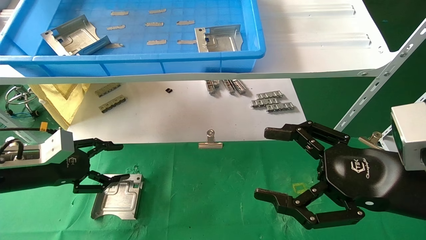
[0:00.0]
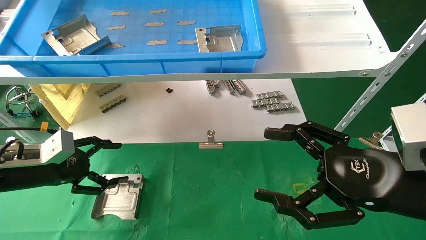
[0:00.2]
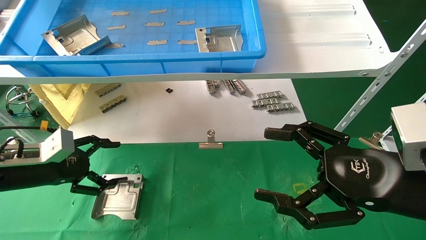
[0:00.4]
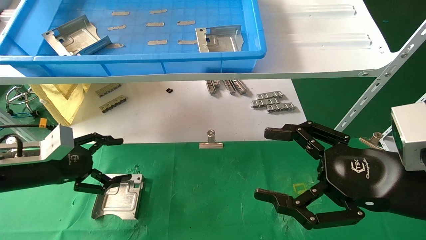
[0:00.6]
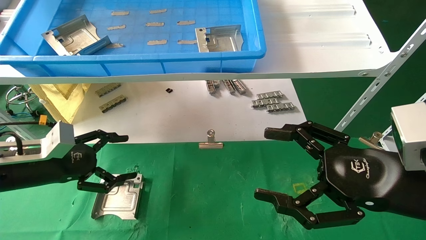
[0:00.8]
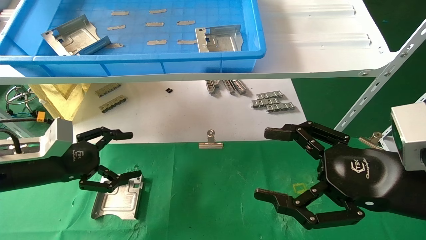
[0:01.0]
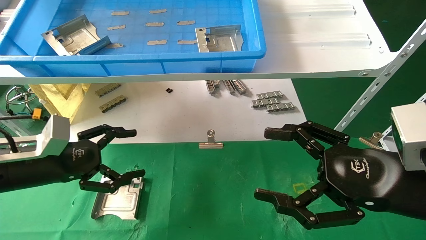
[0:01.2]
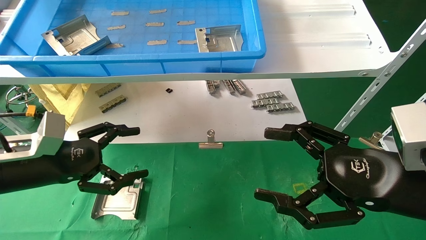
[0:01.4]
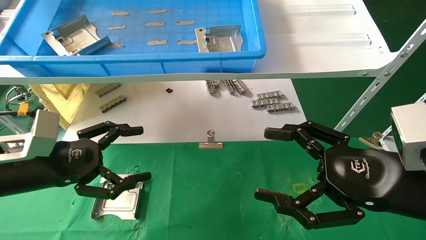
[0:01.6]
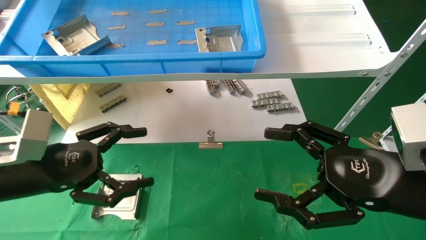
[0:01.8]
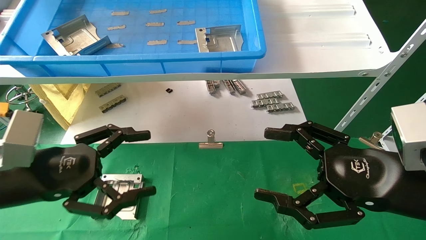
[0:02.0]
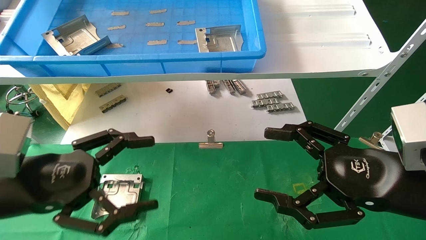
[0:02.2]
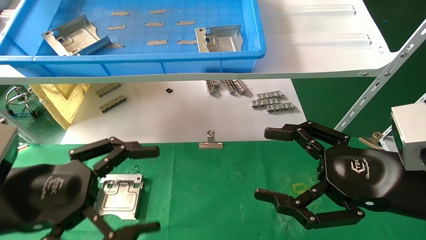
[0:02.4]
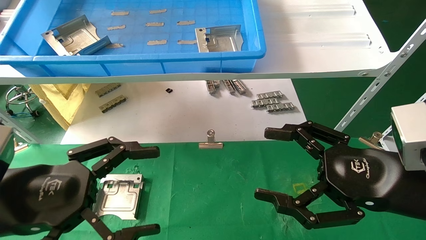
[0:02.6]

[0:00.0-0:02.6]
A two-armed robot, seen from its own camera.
Task of the whole recording: use the mechanical arm to pick up the parts and place them on the table.
0:00.0 to 0:01.2: The left gripper shifts by about 5 cm, and opens its fingers.
0:01.2 to 0:02.6: The left gripper goes about 15 cm backward and to the right.

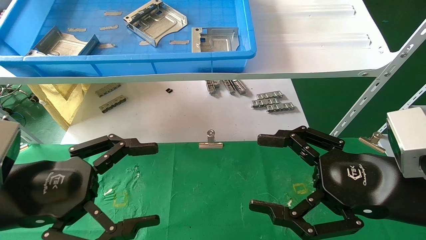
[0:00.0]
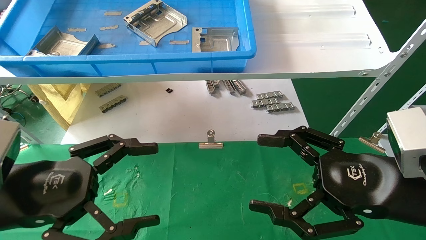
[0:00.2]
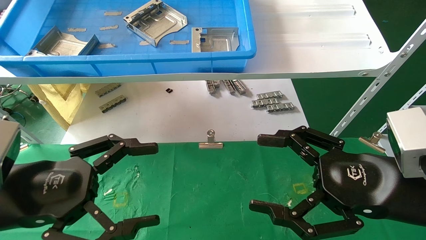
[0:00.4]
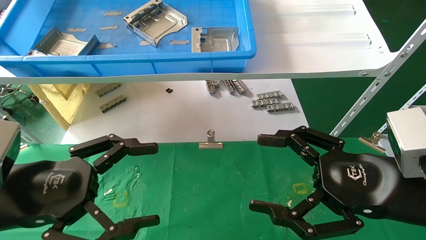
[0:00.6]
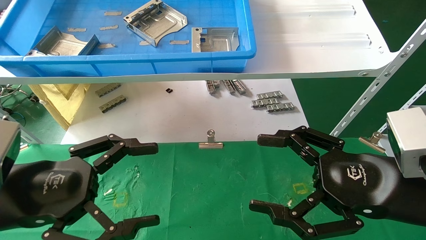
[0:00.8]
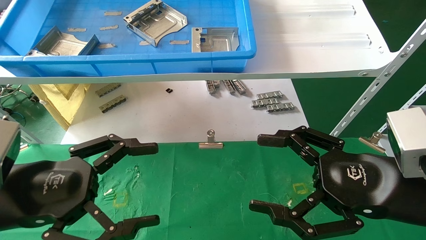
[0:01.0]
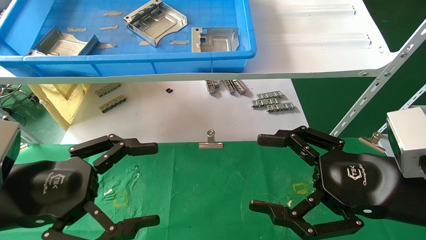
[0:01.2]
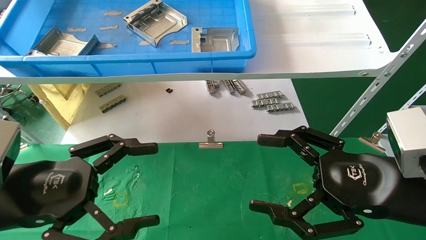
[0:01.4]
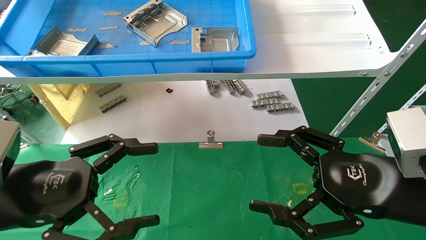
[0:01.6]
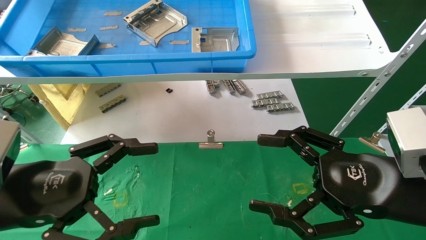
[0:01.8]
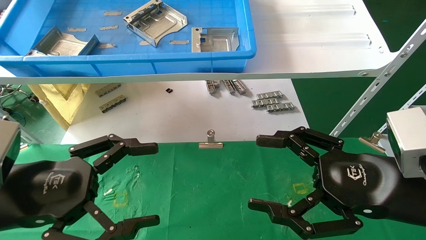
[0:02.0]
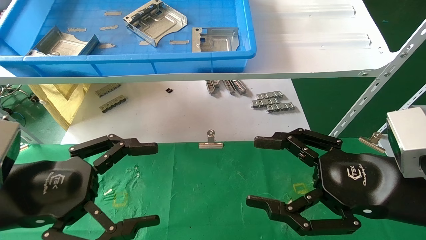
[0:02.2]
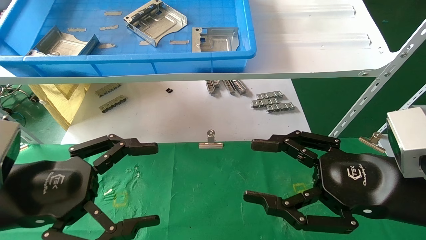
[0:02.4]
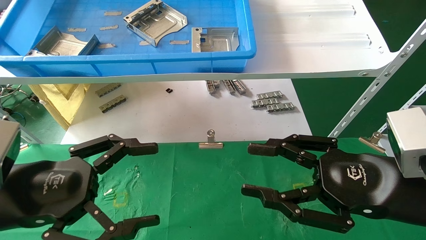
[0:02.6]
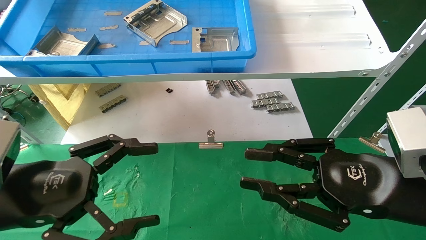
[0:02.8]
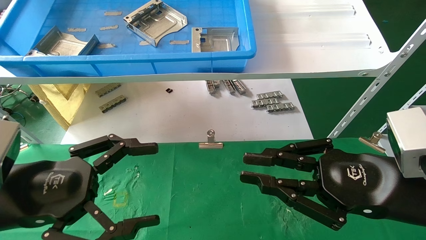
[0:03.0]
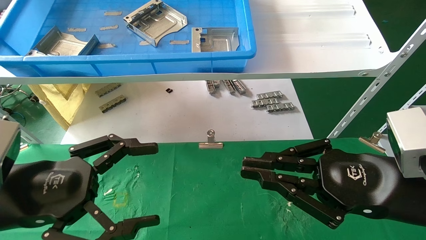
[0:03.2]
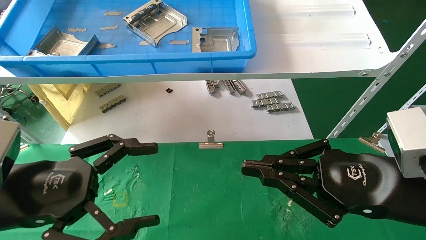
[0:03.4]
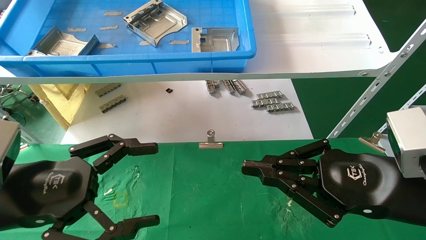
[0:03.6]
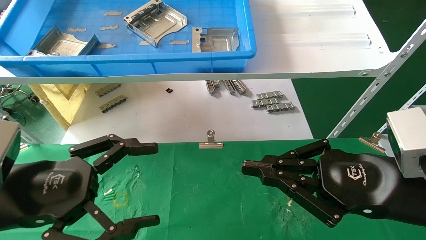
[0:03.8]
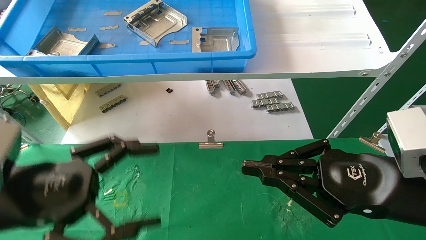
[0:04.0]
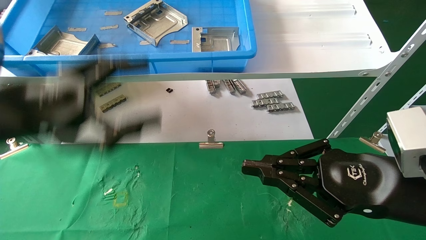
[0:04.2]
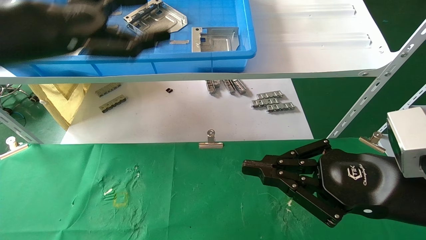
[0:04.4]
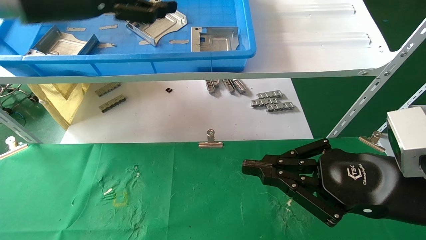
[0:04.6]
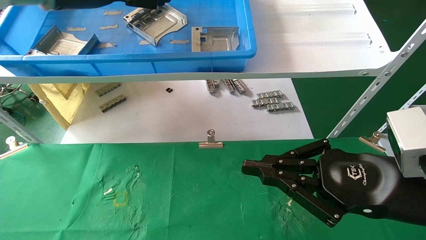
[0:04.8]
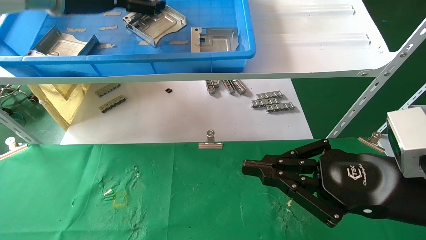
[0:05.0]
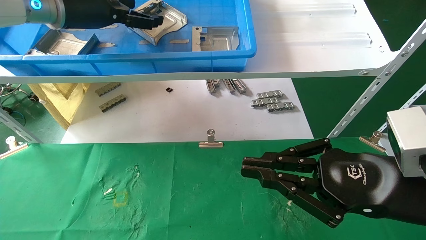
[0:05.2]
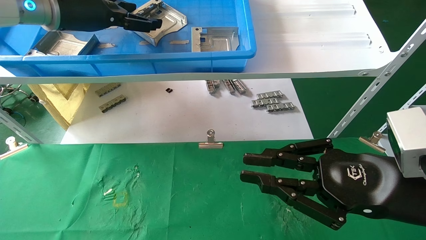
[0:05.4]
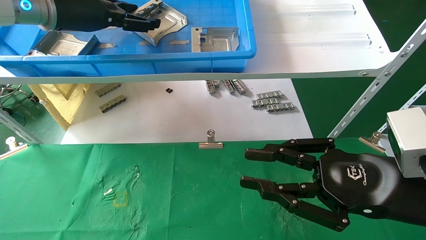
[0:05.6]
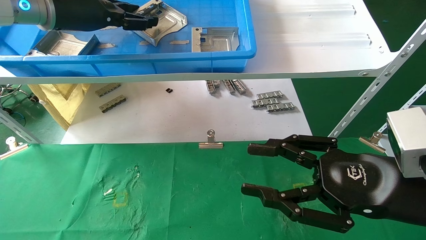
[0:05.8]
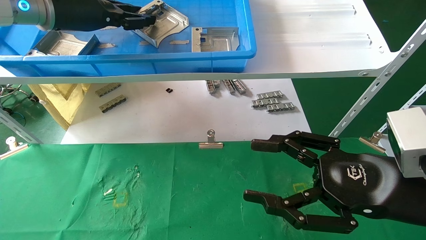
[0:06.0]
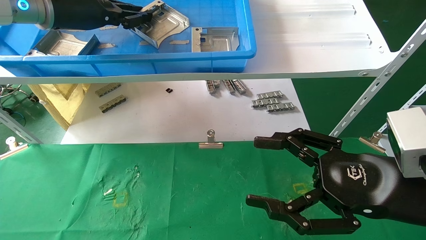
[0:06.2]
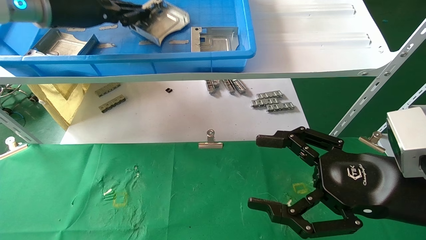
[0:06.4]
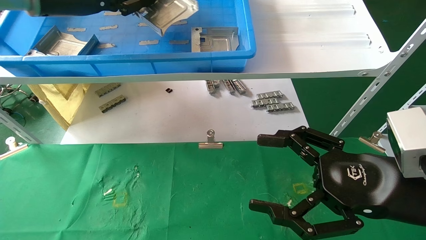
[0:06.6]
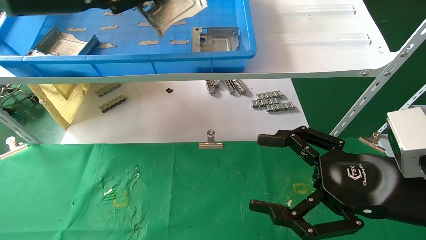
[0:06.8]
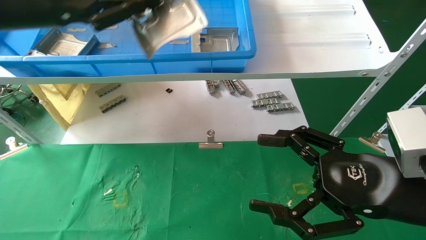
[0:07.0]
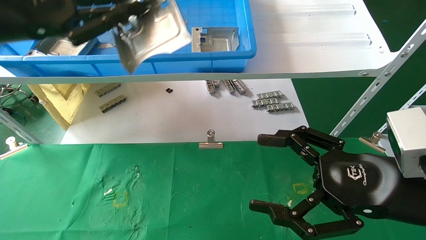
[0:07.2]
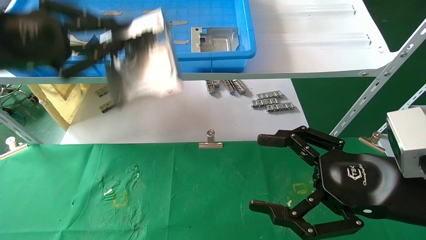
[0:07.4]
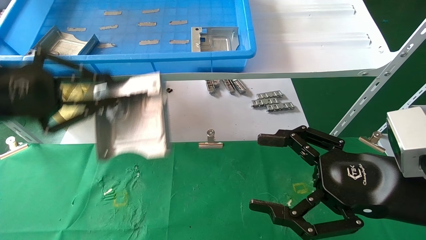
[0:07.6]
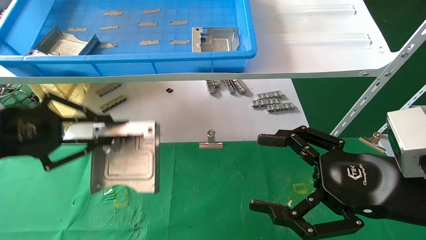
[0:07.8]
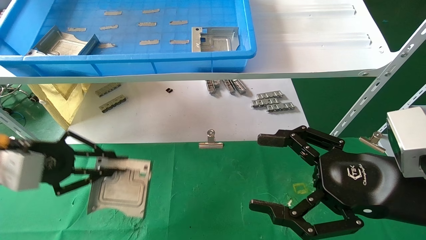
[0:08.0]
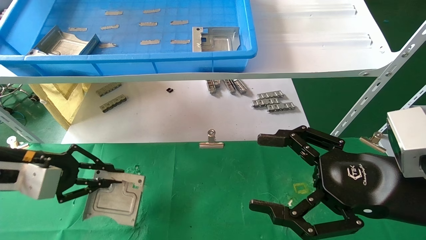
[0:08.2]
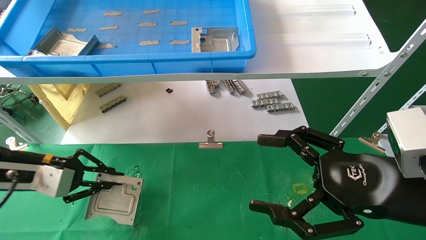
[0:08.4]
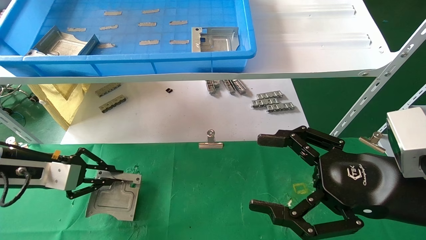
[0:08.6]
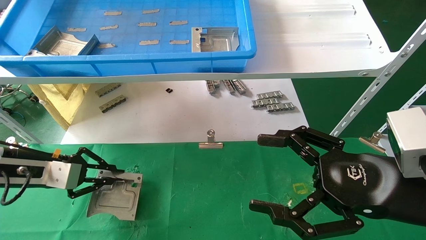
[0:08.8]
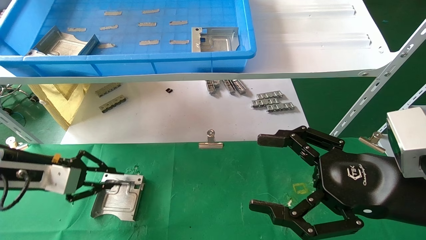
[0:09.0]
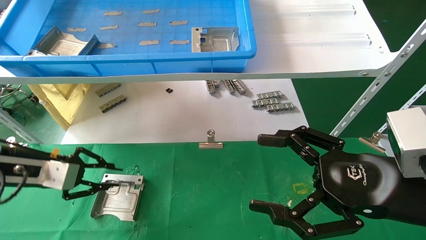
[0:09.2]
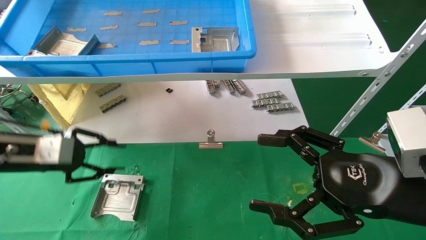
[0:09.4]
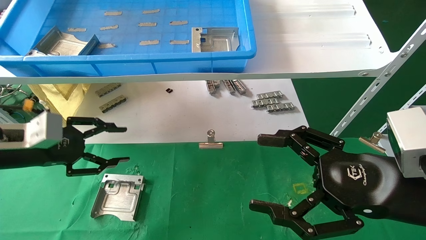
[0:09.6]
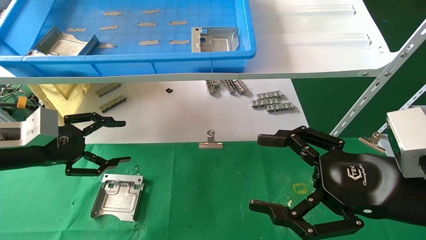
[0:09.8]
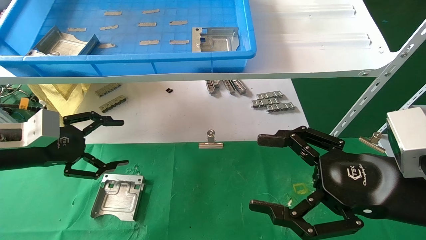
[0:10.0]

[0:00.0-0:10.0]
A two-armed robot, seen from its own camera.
Task of the whole recording: use the mechanical arm to pick up the parts and place them on the table.
Step, 0:04.4 to 0:06.2: Pick up the hard drive bracket from the feeding area.
Step, 0:06.4 to 0:09.4: Place the hard drive bracket into the box.
0:00.0 to 0:01.4: The two grippers keep their place.
0:01.4 to 0:02.8: The right gripper closes.
0:02.8 to 0:04.2: The right gripper closes its fingers, while the left gripper goes some 10 cm upward.
0:04.2 to 0:05.8: The right gripper opens its fingers. The left gripper is displaced forward and upward by about 20 cm, and closes its fingers.
0:05.8 to 0:07.2: The right gripper opens up. The left gripper travels backward and to the left by about 15 cm, and closes its fingers.
0:07.2 to 0:08.6: The left gripper goes approximately 25 cm downward.
0:08.6 to 0:10.0: The left gripper opens up.

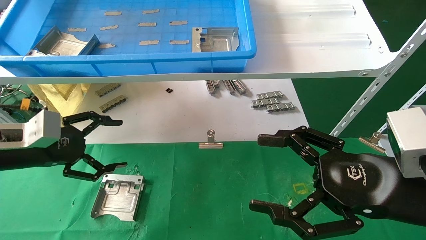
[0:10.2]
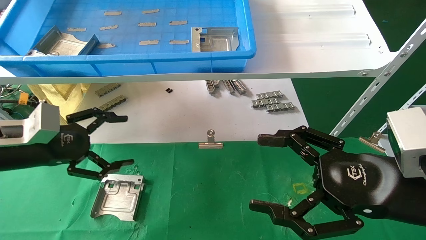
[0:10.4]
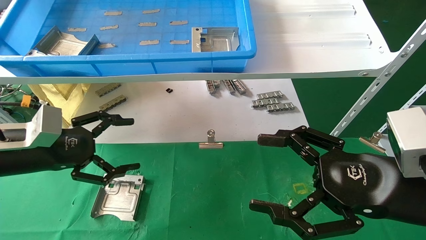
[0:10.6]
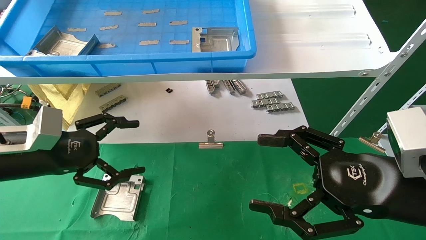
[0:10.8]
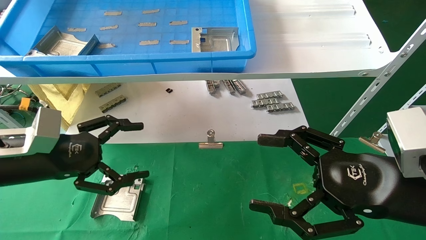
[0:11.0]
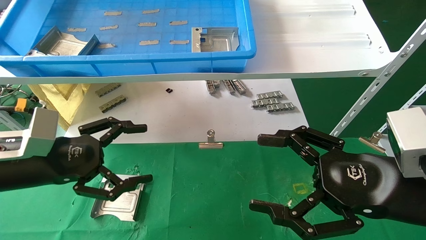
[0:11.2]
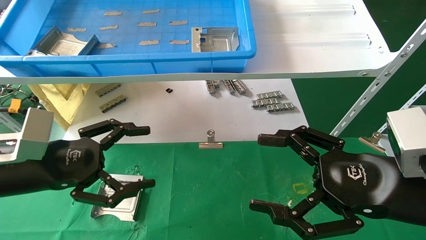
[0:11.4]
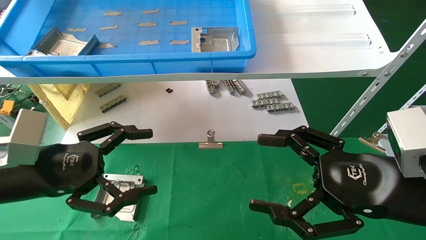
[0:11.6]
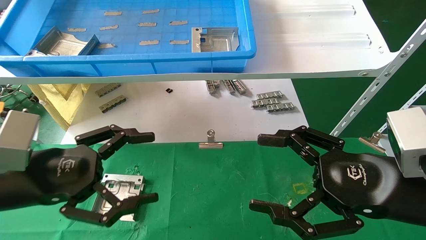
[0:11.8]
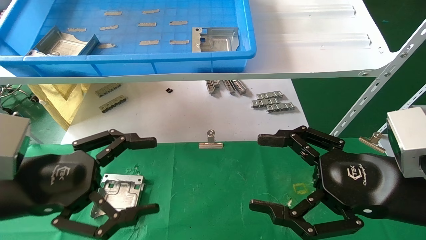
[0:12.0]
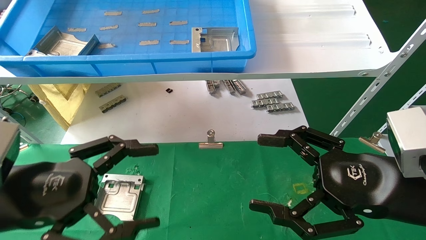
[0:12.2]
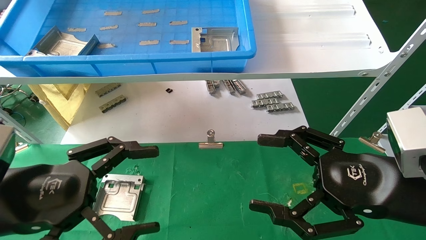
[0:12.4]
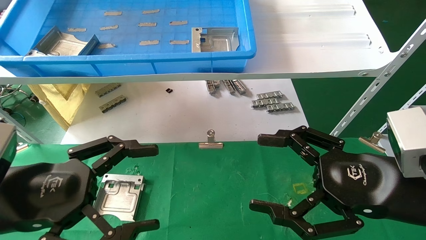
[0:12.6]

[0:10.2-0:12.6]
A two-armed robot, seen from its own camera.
Task of the whole recording: use the mechanical arm to pick up the parts and place them on the table.
0:10.2 to 0:11.4: The left gripper shifts some 10 cm to the right and backward.
0:11.4 to 0:12.6: The left gripper heads backward, covering some 5 cm.

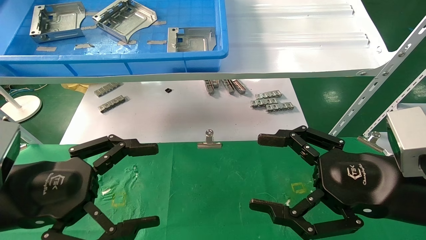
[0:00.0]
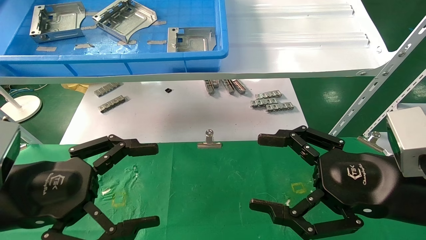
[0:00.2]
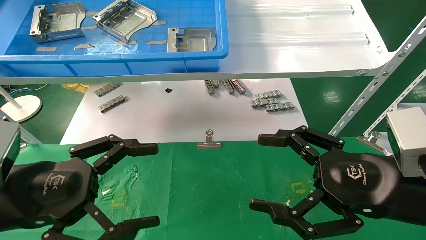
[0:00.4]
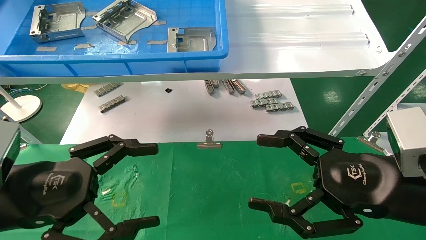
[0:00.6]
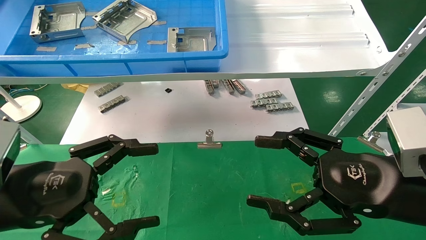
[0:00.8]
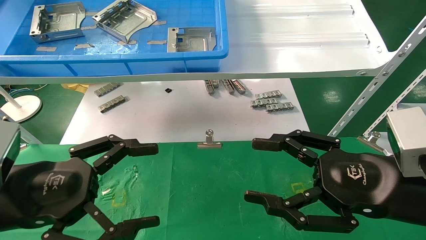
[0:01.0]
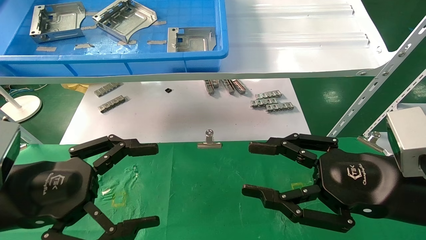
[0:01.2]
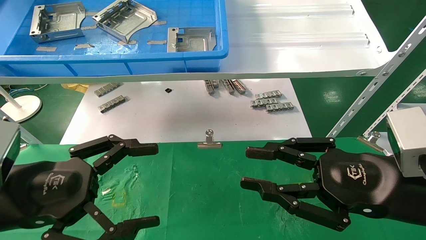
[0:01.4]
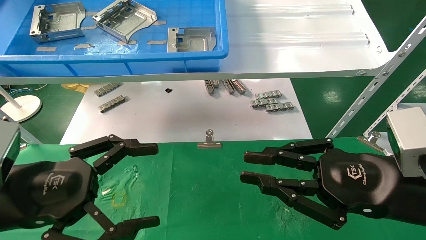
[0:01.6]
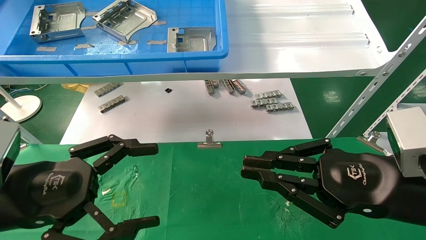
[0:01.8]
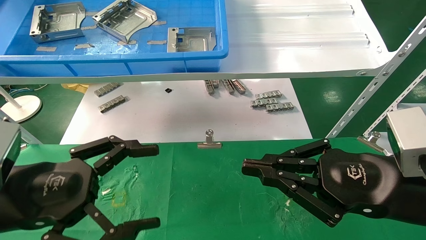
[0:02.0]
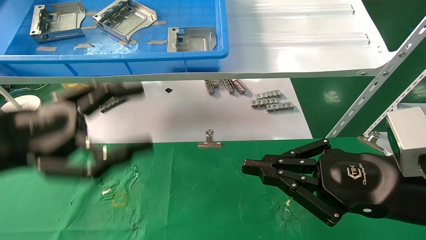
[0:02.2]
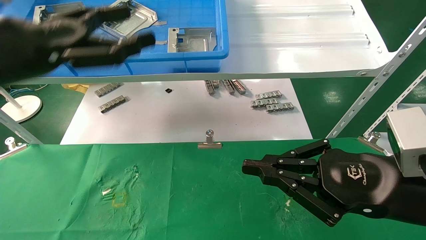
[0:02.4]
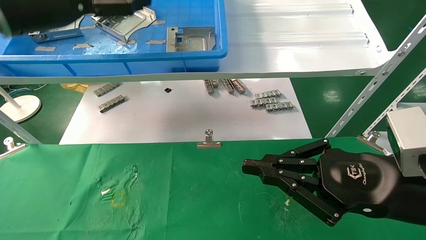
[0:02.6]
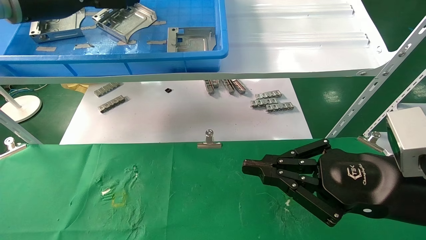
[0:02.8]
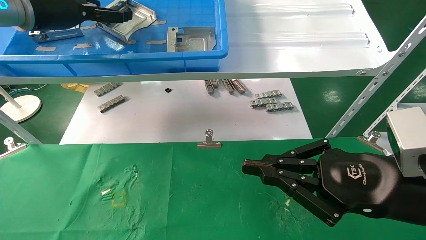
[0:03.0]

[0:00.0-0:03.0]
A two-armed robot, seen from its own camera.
Task of the whole recording: use the mechanical arm to pick up the parts and place them on the table.
0:00.0 to 0:01.6: The right gripper closes.
0:01.6 to 0:03.0: The left gripper is displaced upward and forward by roughly 30 cm.
